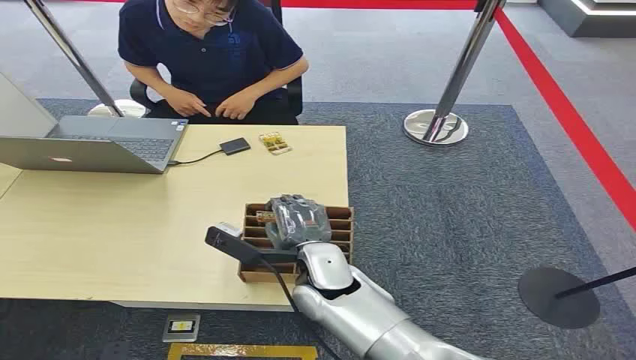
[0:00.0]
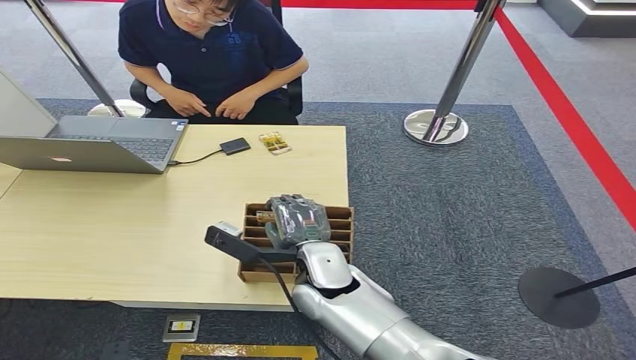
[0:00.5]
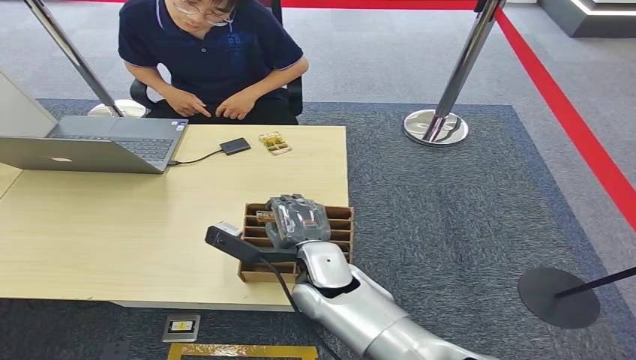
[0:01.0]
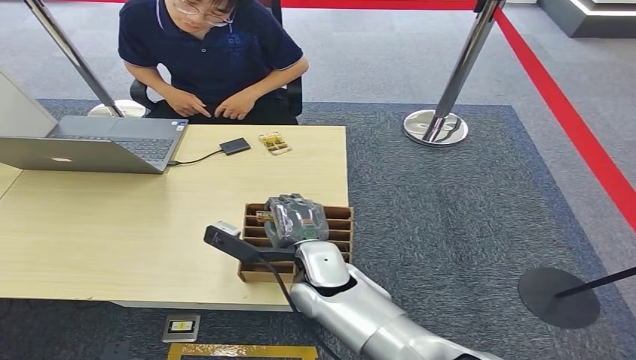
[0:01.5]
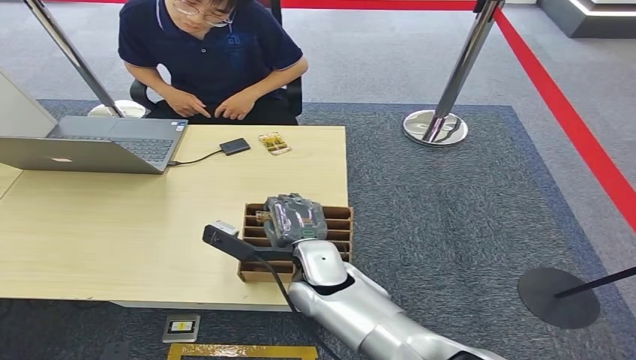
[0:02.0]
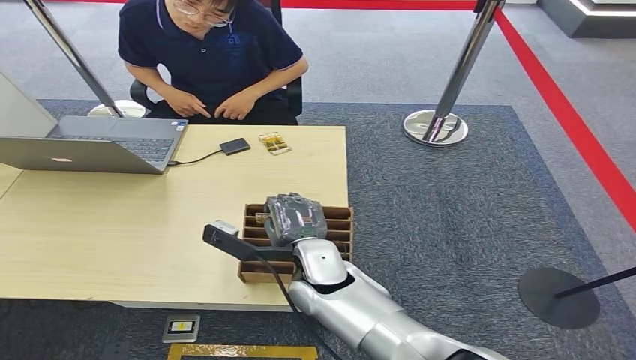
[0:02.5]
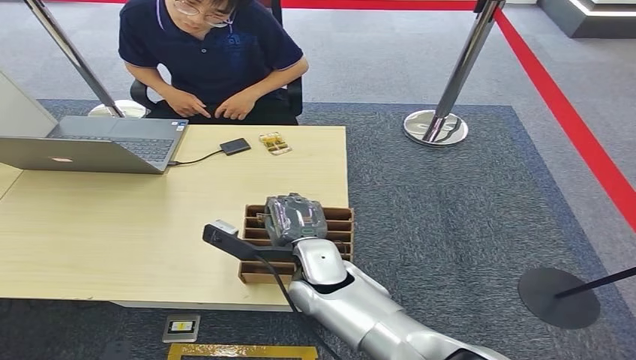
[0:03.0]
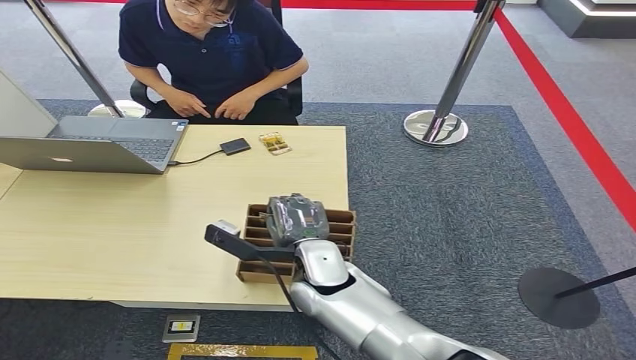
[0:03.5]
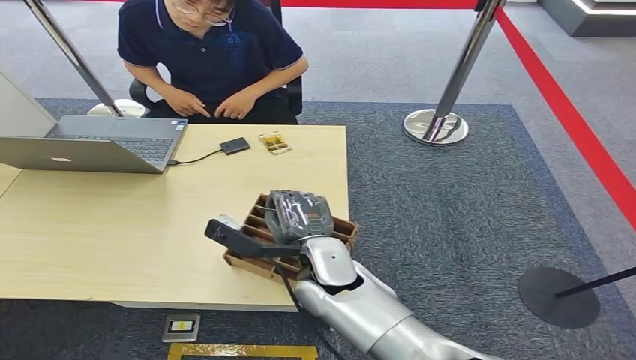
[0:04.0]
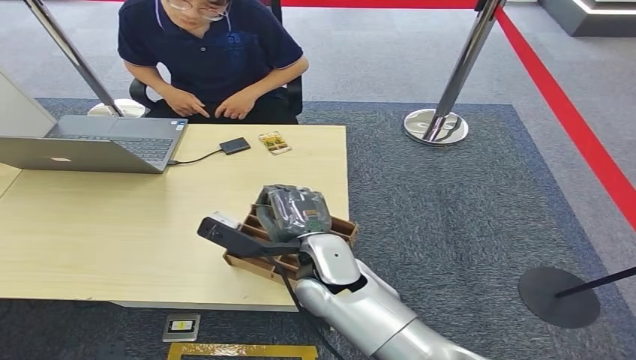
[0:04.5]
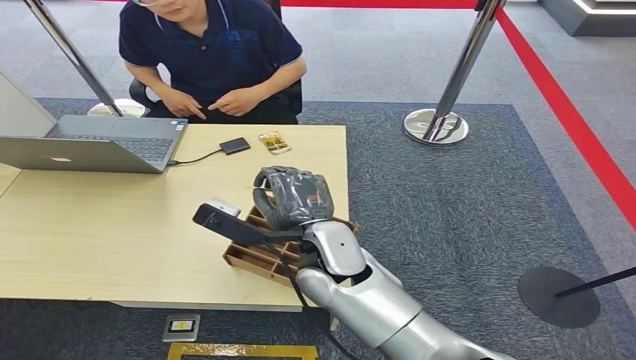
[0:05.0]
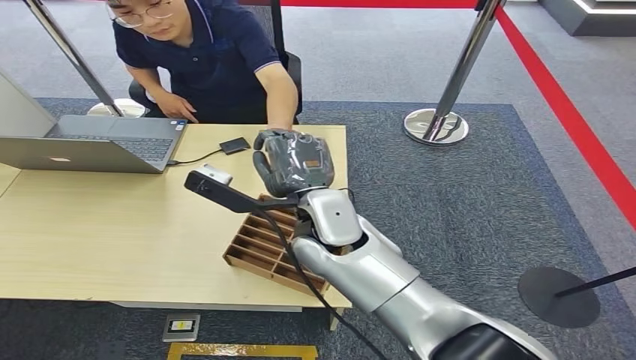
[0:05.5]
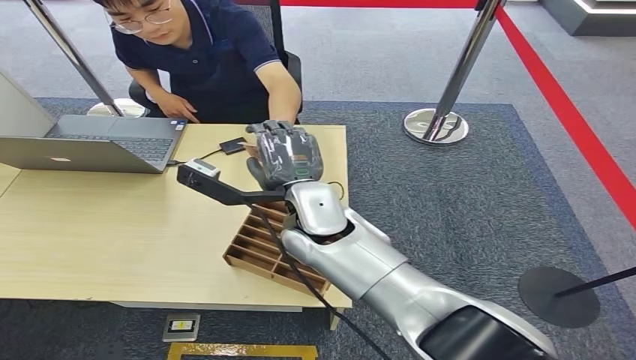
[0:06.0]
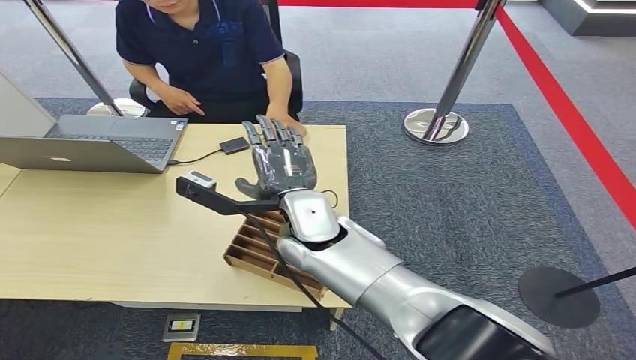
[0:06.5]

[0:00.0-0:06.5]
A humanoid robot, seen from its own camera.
Step, 0:00.0 to 0:04.5: Pick up the key card from the card box.
Step, 0:05.0 to 0:06.5: Hand the key card to the target.
0:02.0 to 0:04.5: The hands make only small movements.
0:04.5 to 0:06.5: The right hand is displaced forward and upward by some 10 cm.
